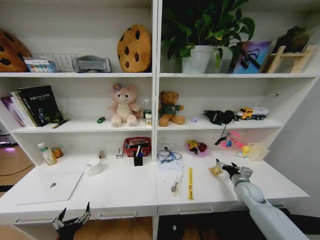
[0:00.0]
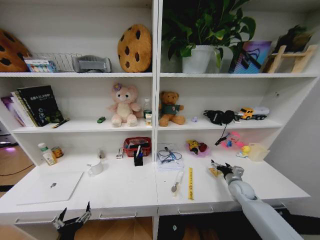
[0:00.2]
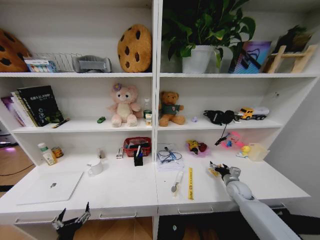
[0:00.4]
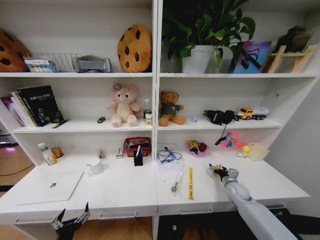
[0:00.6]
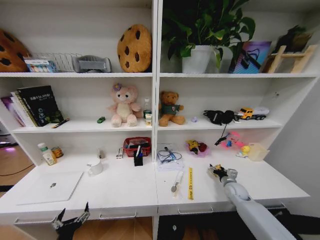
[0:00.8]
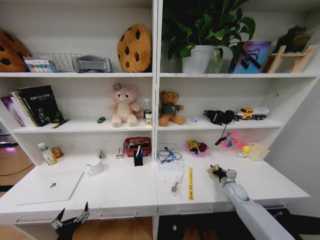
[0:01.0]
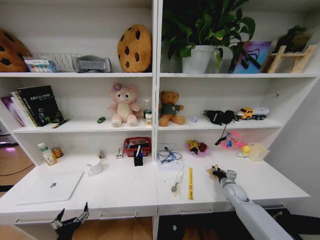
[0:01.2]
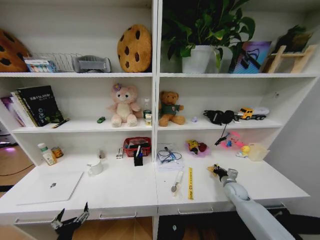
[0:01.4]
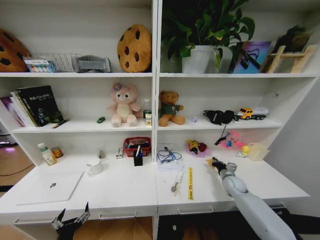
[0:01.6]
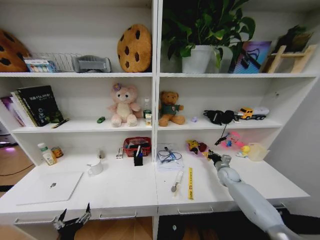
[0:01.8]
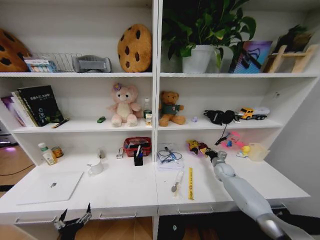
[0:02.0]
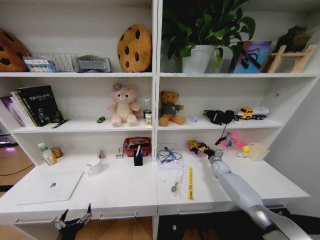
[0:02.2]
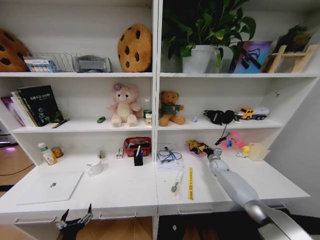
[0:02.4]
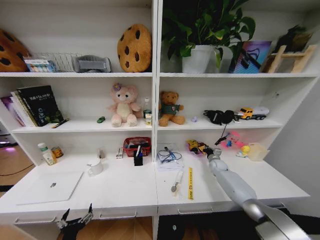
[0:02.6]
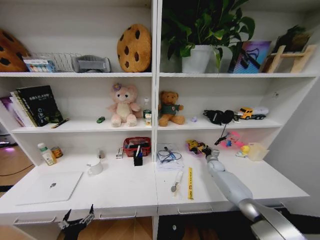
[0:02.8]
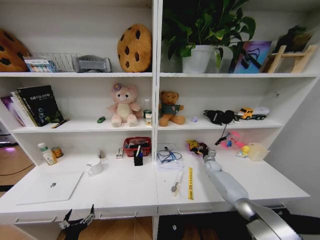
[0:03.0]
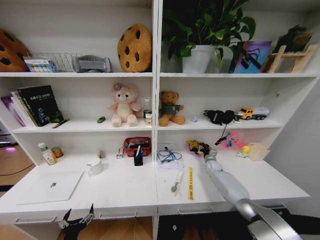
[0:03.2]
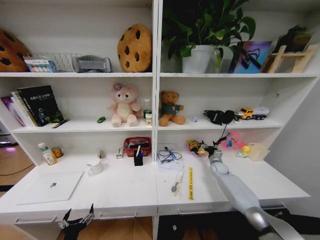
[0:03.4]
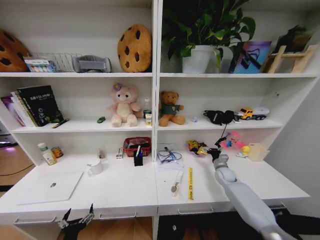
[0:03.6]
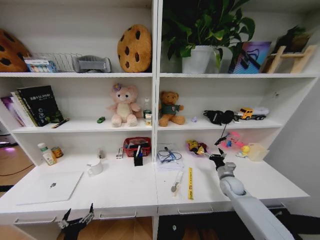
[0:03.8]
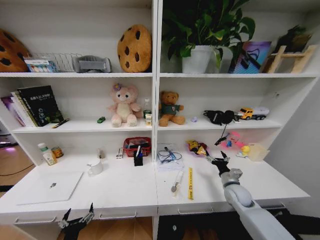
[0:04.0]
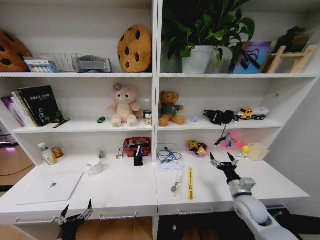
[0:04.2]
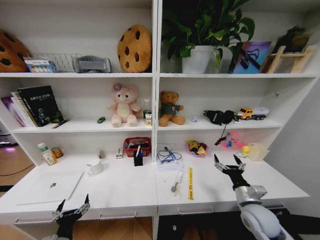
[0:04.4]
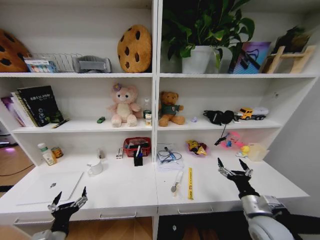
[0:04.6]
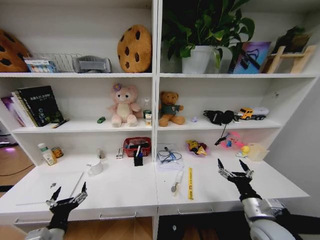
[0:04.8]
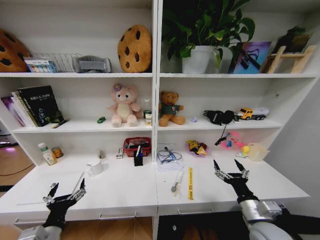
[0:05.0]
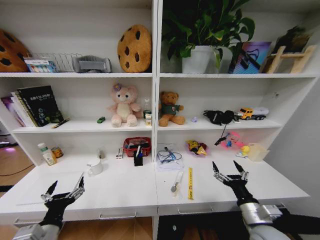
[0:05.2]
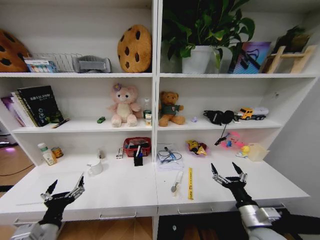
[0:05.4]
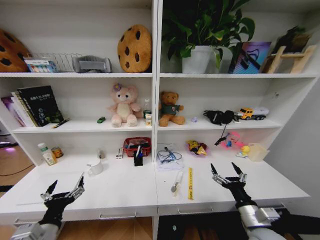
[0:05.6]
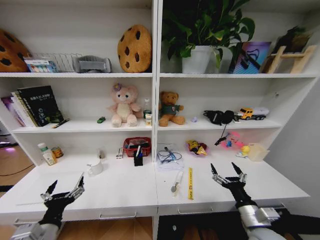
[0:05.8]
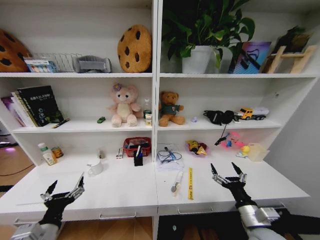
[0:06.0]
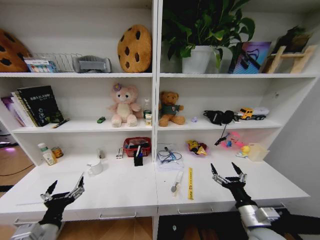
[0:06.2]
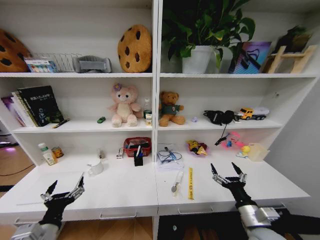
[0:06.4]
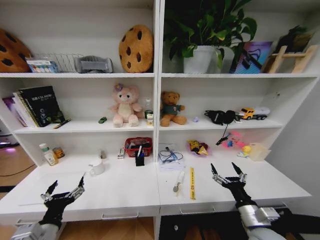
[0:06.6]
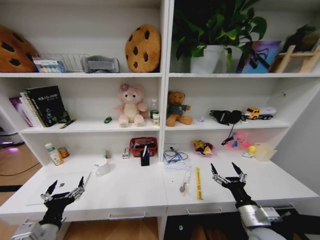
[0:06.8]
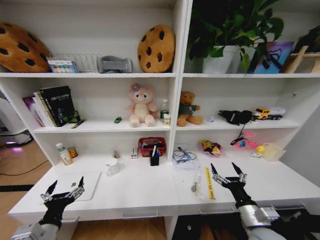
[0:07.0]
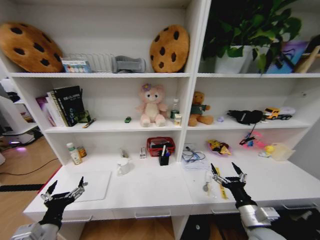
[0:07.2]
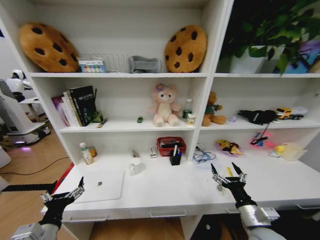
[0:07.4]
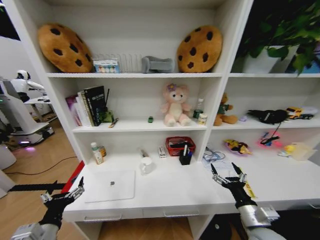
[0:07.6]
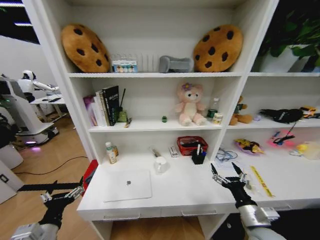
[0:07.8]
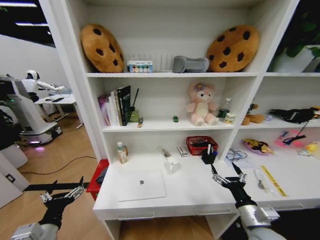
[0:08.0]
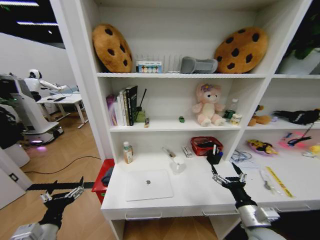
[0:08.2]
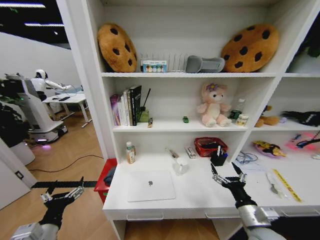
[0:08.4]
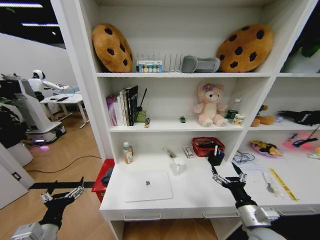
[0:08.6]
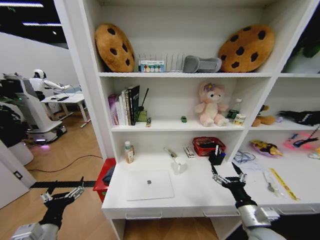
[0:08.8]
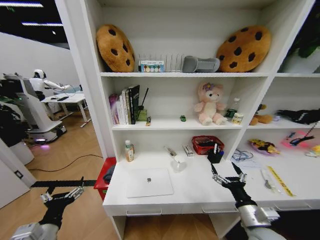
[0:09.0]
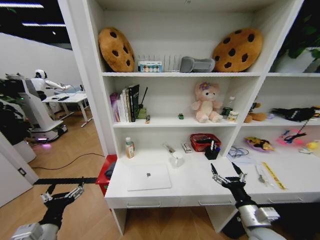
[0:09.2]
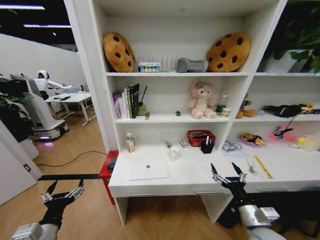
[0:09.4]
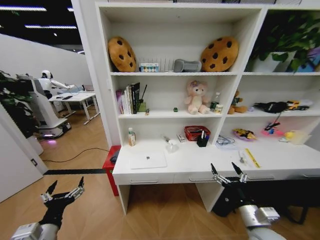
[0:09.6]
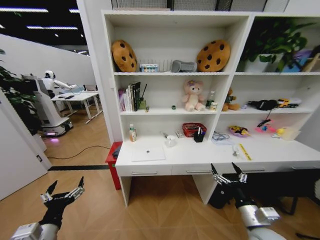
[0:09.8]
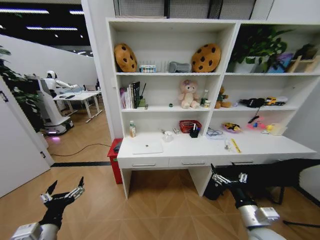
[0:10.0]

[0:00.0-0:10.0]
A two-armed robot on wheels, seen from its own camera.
Task of the whole recording: Organize the objects on the table.
0:00.0 to 0:01.4: The right gripper changes place by roughly 5 cm, and closes.
0:01.4 to 0:02.8: The right gripper travels forward by about 15 cm.
0:02.8 to 0:04.2: The right gripper is displaced backward by roughly 25 cm, and opens its fingers.
0:04.2 to 0:05.8: The left gripper shifts roughly 15 cm upward. The right gripper is displaced backward by roughly 10 cm.

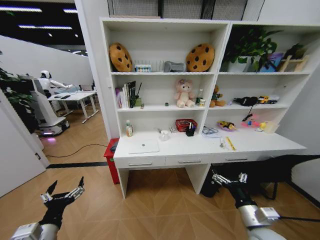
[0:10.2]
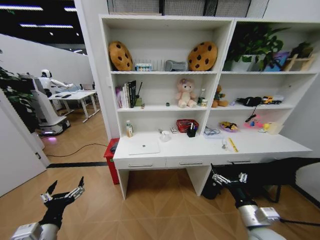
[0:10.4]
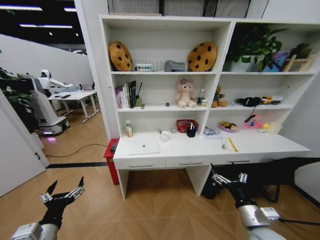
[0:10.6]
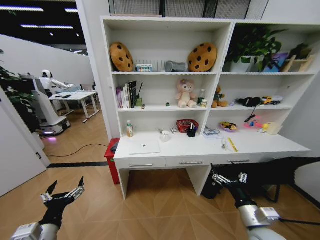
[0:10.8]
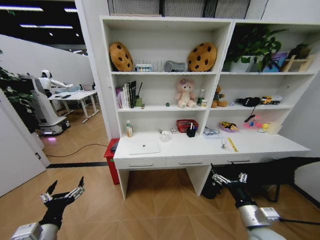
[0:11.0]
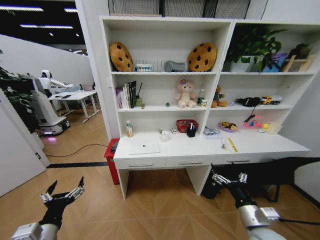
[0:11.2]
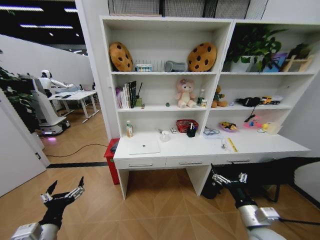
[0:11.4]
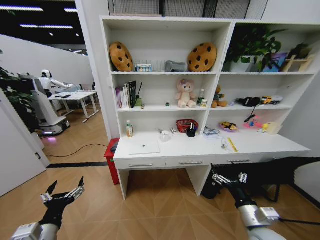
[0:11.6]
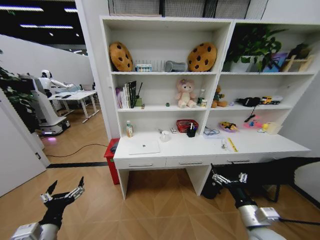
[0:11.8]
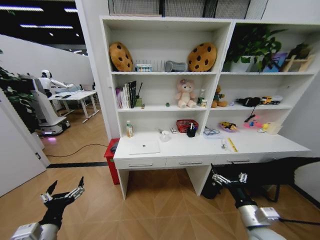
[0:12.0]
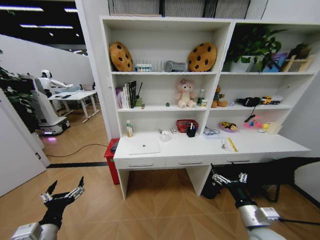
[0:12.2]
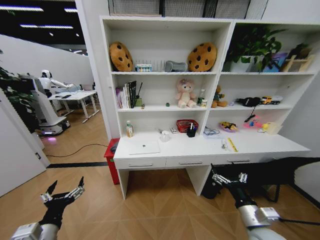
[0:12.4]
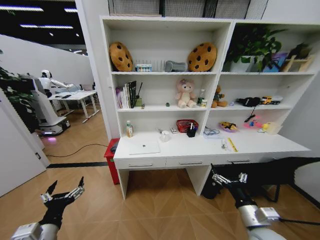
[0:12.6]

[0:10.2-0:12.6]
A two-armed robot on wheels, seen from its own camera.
Task of the whole recording: Organize the objects on the table.
0:10.2 to 0:12.6: The two grippers keep their place.

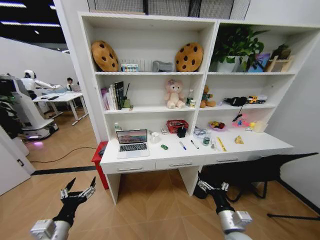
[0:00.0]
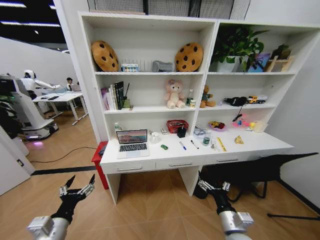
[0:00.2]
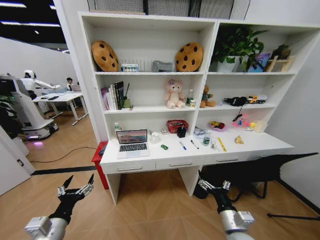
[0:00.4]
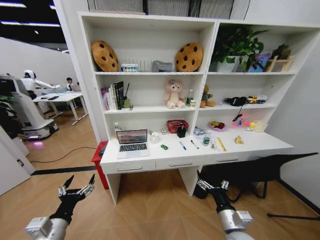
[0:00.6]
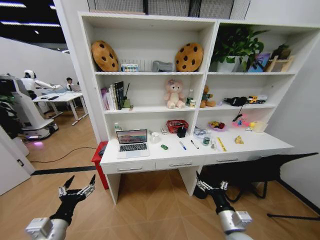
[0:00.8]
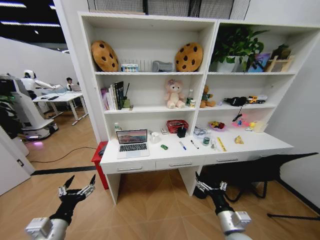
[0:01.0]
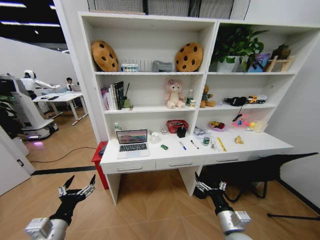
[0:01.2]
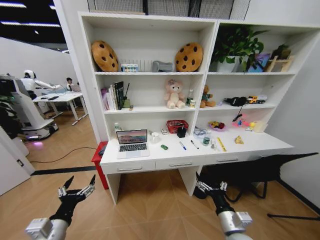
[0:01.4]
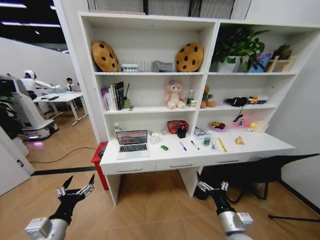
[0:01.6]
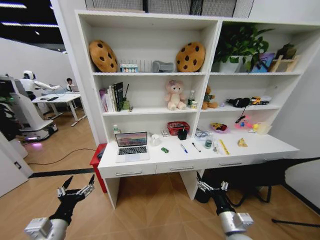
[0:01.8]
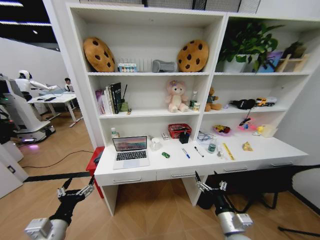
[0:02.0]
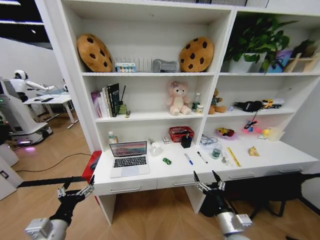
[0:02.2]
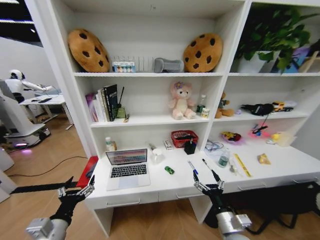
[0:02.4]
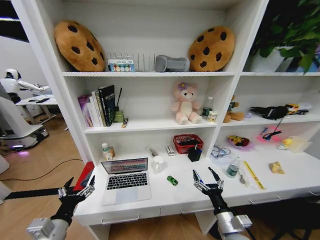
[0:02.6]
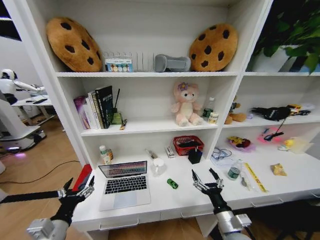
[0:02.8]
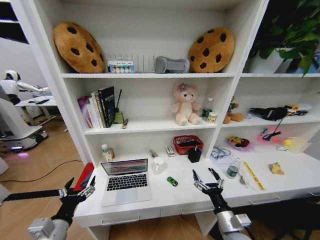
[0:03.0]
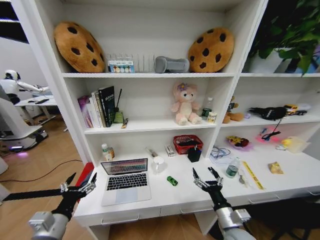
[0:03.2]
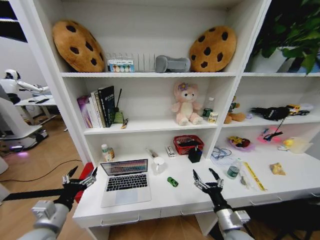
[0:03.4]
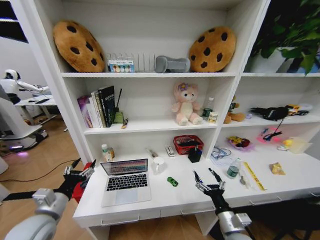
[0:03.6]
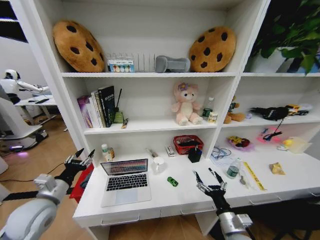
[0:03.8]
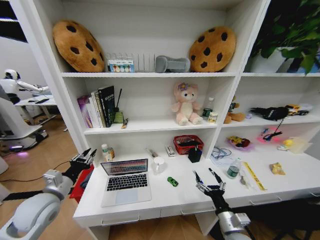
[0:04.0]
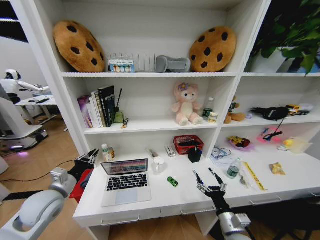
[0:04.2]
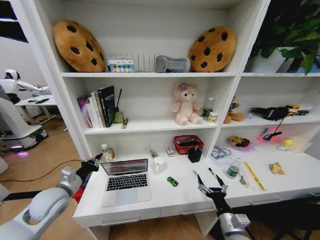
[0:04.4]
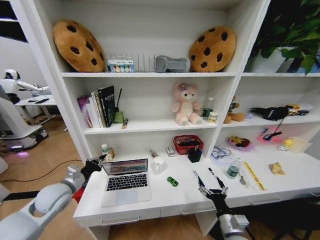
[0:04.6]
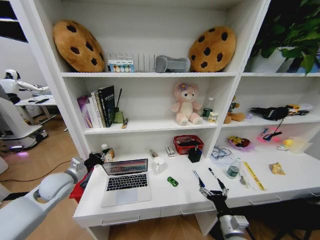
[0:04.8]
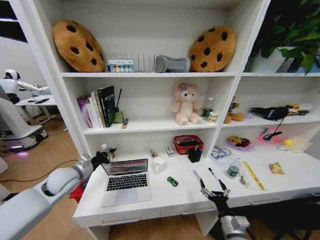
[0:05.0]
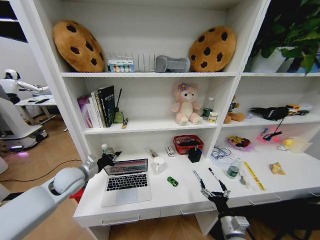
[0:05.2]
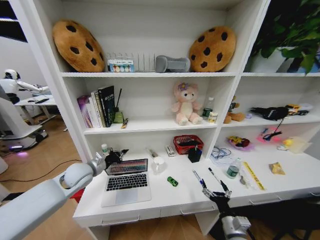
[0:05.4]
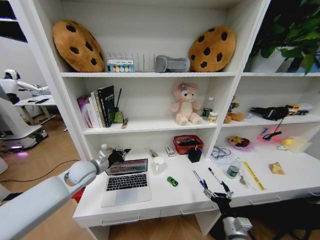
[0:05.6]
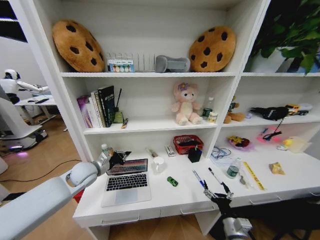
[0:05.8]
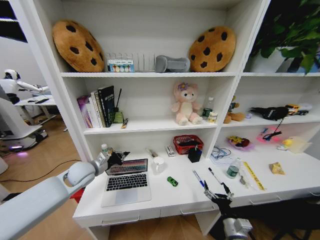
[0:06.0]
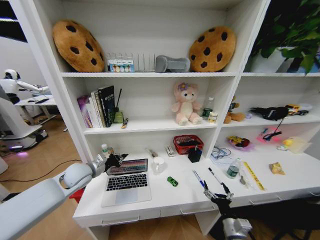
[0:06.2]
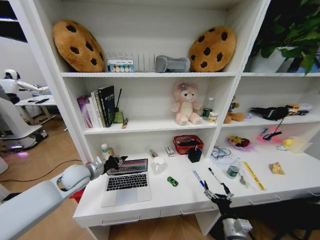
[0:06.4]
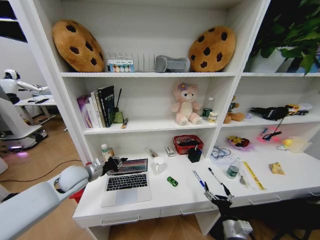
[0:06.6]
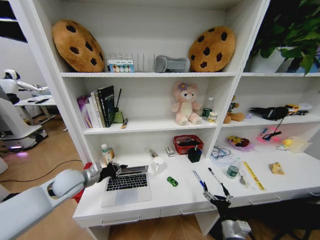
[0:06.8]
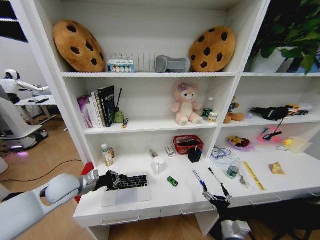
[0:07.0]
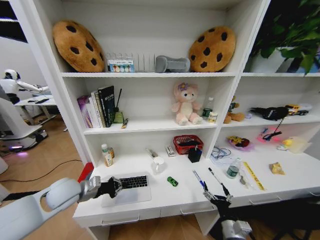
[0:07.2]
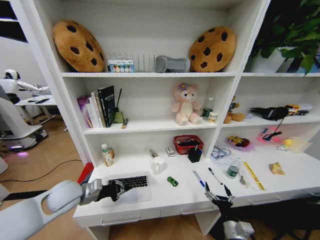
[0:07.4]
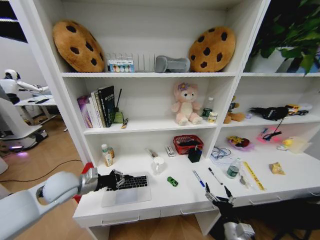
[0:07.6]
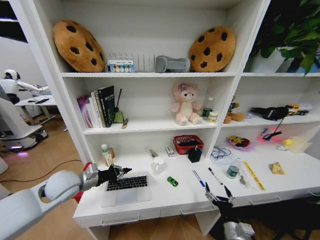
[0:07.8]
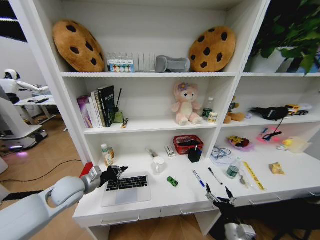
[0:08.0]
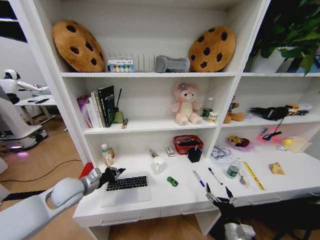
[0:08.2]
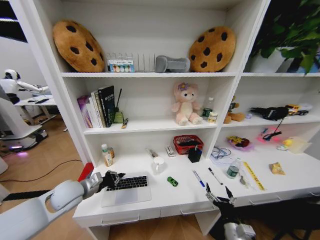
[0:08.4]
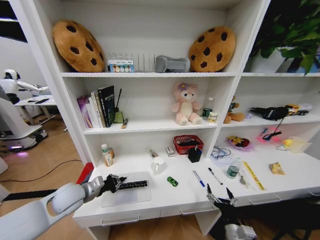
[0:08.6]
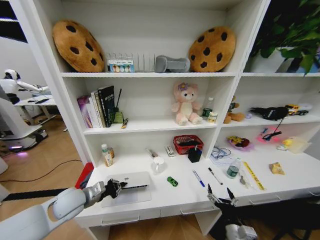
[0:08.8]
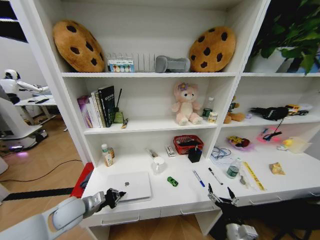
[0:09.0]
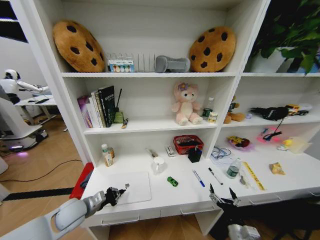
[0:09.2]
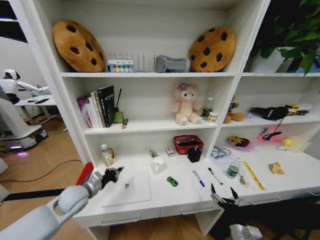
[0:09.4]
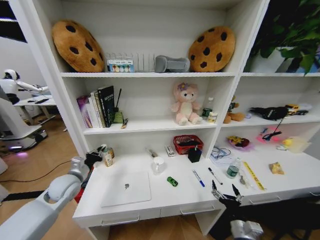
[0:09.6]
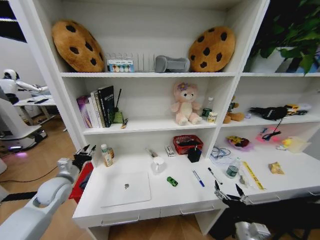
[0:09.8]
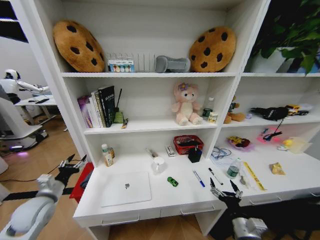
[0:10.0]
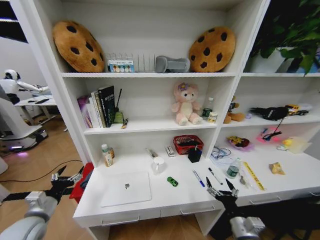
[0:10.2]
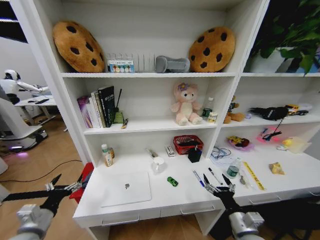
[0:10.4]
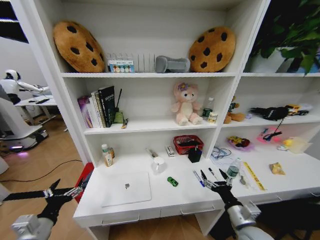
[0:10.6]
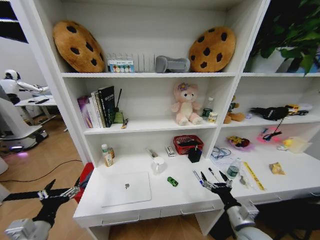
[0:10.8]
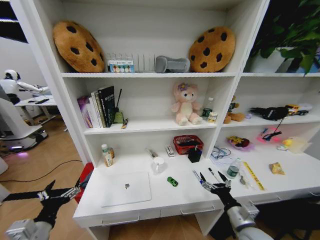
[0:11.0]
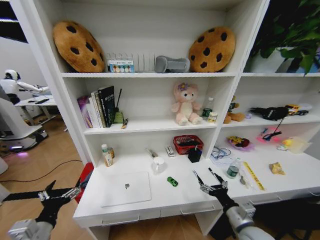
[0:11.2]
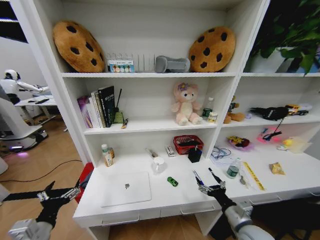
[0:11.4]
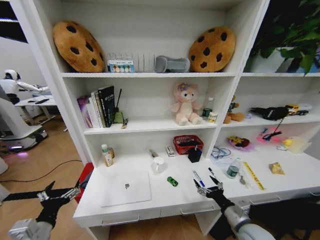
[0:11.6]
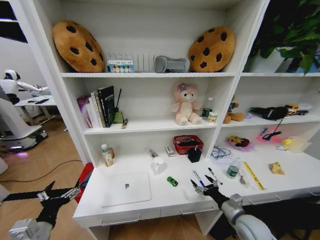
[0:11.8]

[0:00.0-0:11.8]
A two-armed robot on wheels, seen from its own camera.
Task of the whole recording: Organize the objects on the table.
0:03.0 to 0:04.4: The left gripper is displaced forward by about 15 cm, and closes its fingers.
0:04.4 to 0:06.0: The left gripper goes about 10 cm forward and to the right.
0:06.0 to 0:07.4: The left gripper is displaced backward by approximately 10 cm.
0:08.8 to 0:10.4: The right gripper shifts some 5 cm upward; the left gripper goes roughly 15 cm backward and to the left, and opens up.
0:10.4 to 0:11.8: The right gripper heads forward, covering approximately 5 cm. The left gripper travels backward by some 5 cm.
